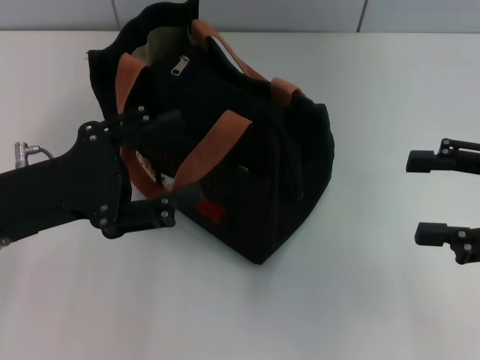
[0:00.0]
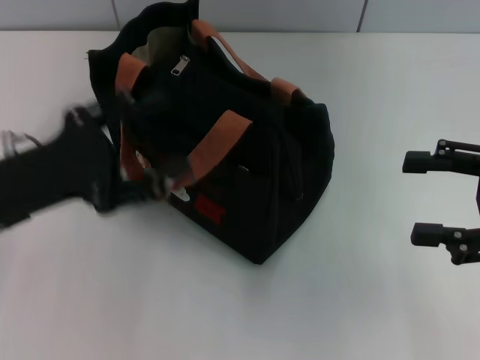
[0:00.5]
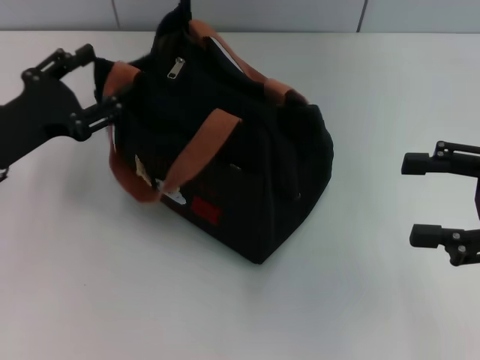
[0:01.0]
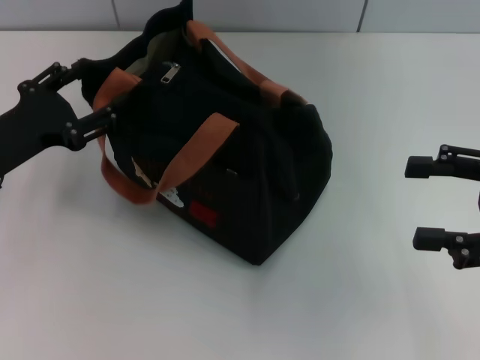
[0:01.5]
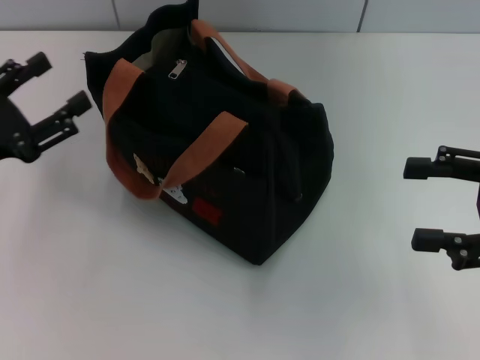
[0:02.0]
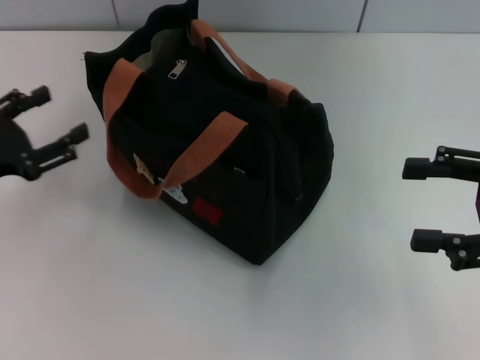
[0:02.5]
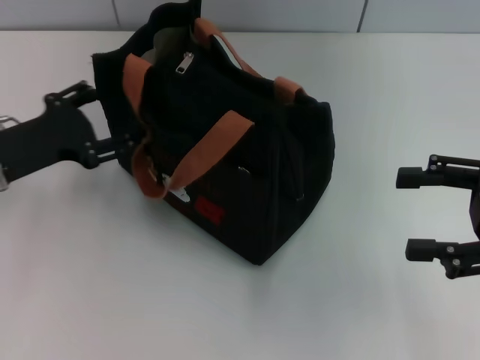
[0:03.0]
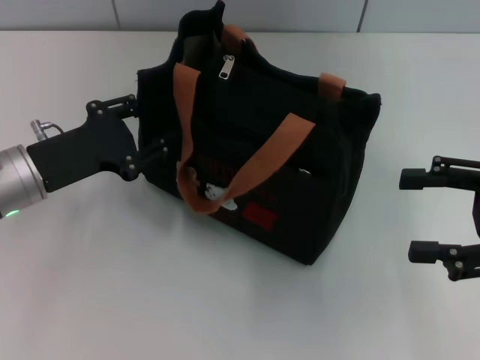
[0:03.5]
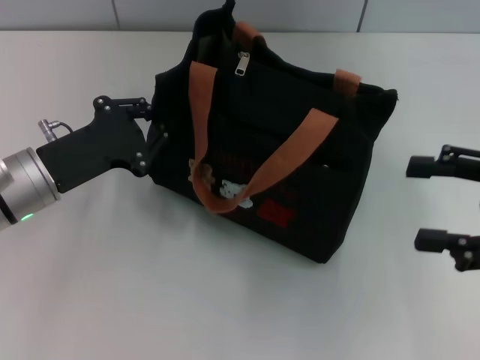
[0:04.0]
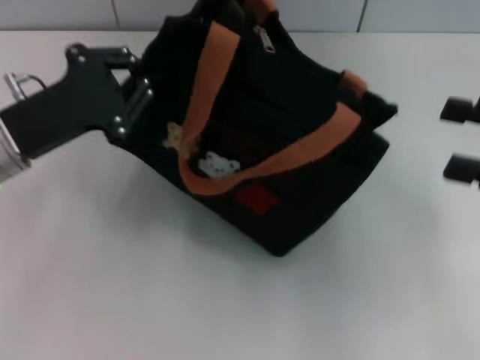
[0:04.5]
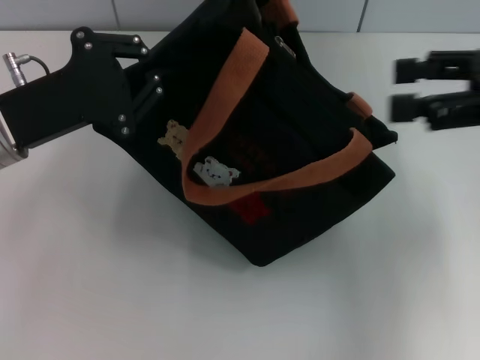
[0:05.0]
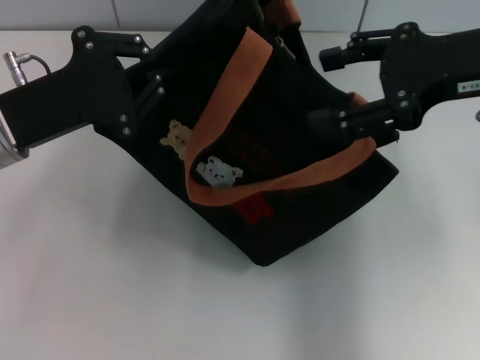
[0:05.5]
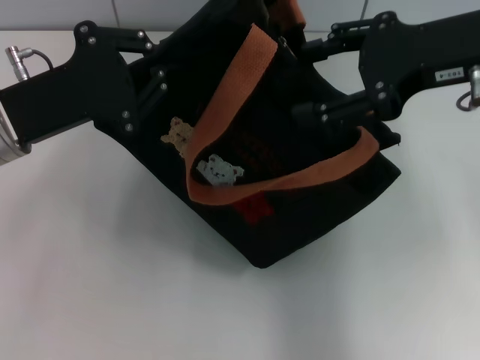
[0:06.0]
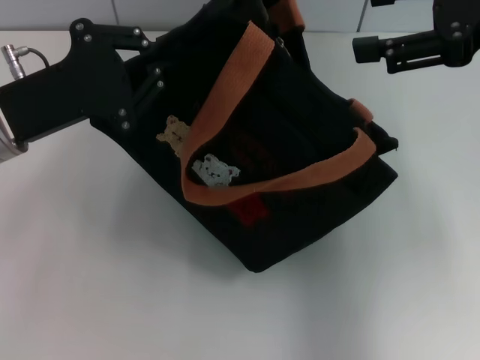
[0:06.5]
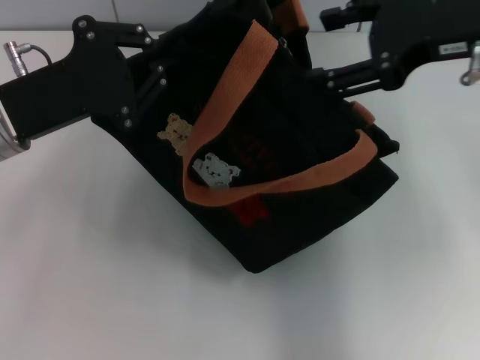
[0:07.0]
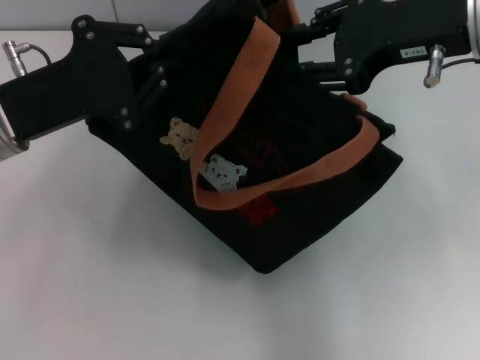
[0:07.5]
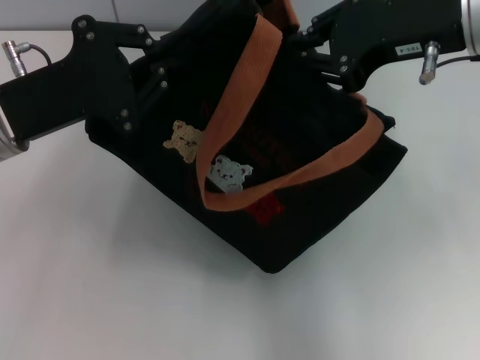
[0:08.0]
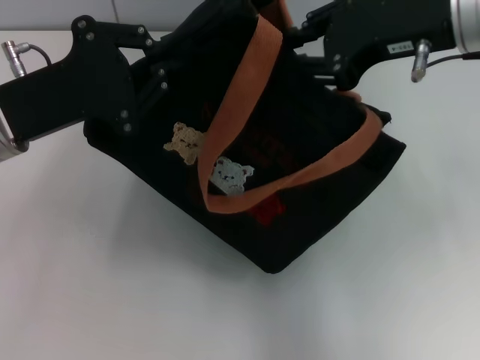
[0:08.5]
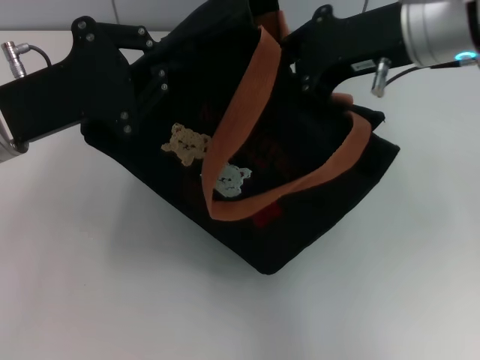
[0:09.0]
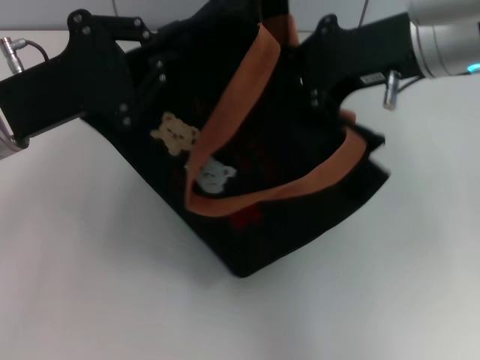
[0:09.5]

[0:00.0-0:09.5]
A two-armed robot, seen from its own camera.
0.0 to 2.0 s: The left gripper heads to the left, covering some 5 cm.
2.0 to 4.0 s: The left gripper travels to the right by some 10 cm, and closes.
4.0 to 5.5 s: The left gripper moves upward, some 5 cm. The right gripper goes approximately 15 cm upward, to the left and forward.
5.5 to 7.5 s: There are only small adjustments of the grippers.
7.5 to 9.5 s: The right gripper closes up.

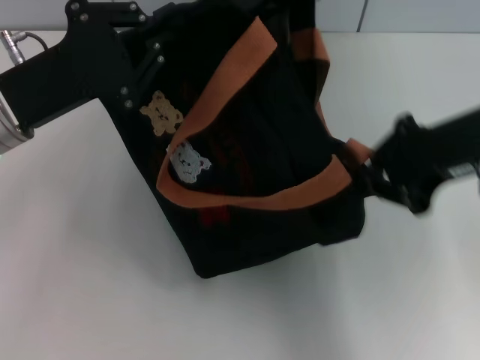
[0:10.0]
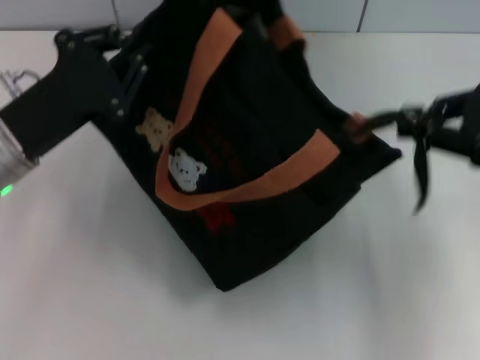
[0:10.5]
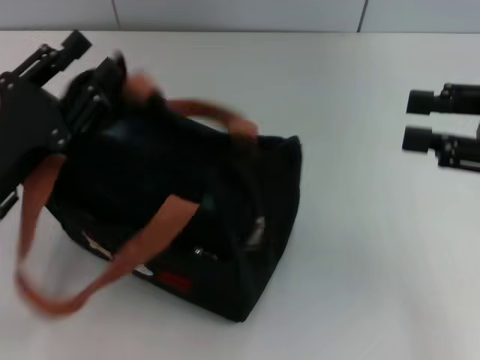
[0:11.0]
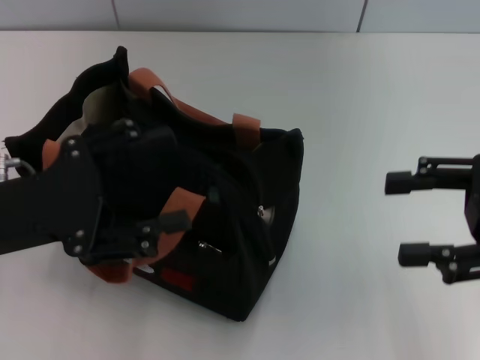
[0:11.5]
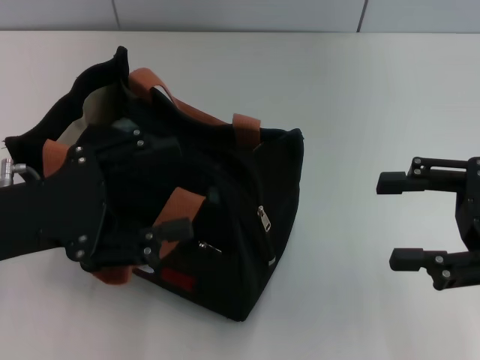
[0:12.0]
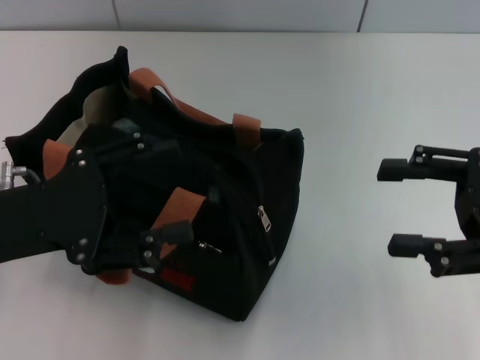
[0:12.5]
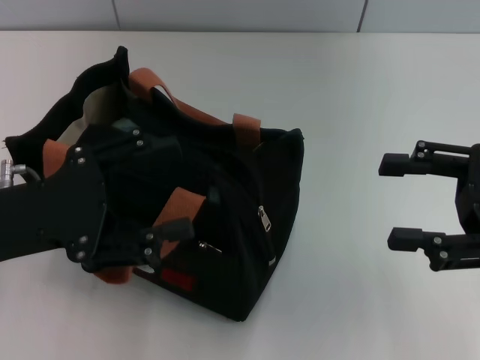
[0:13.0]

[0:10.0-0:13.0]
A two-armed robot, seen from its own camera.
10.0 to 11.5 s: The right gripper goes roughly 10 cm to the right and backward, and opens up, while the left gripper travels backward by roughly 10 cm, and opens its fingers.
11.5 to 13.0 s: The grippers move only a little.

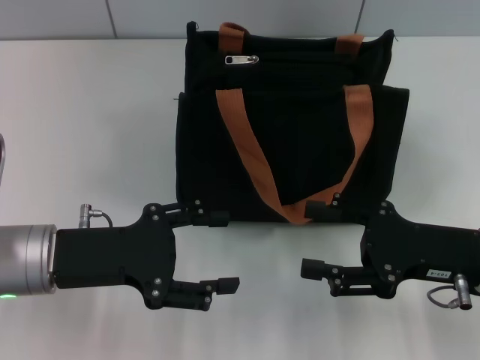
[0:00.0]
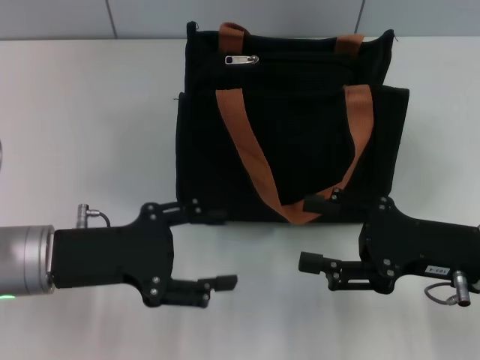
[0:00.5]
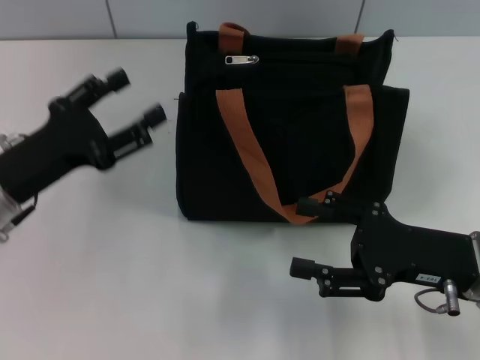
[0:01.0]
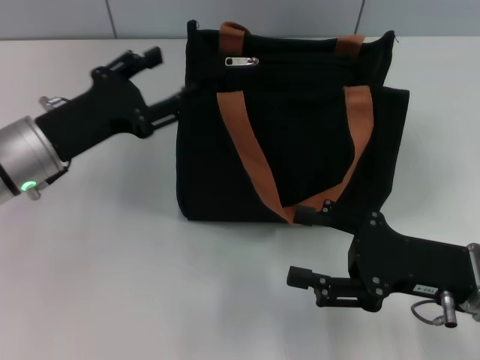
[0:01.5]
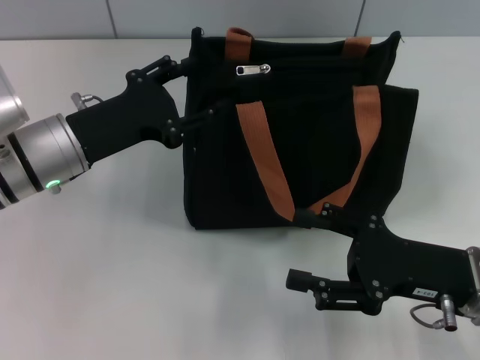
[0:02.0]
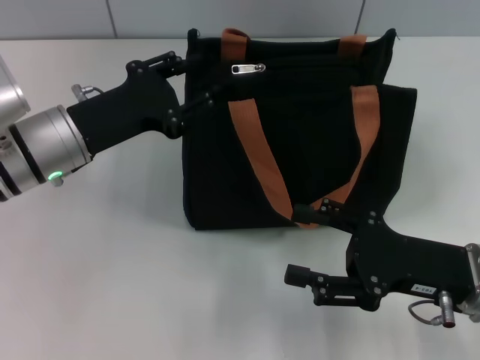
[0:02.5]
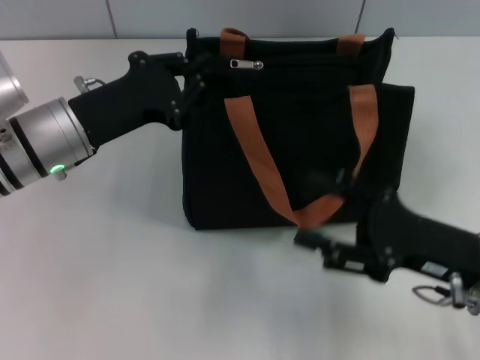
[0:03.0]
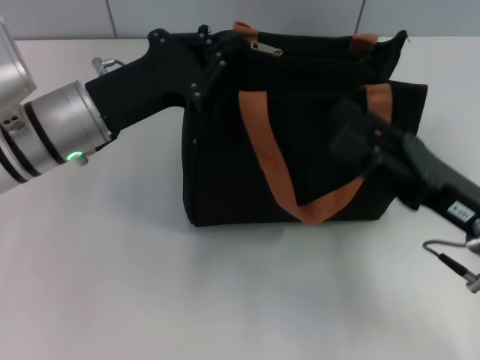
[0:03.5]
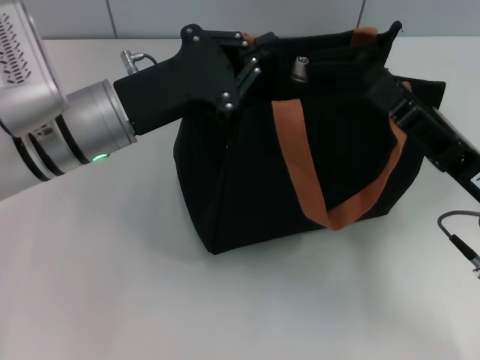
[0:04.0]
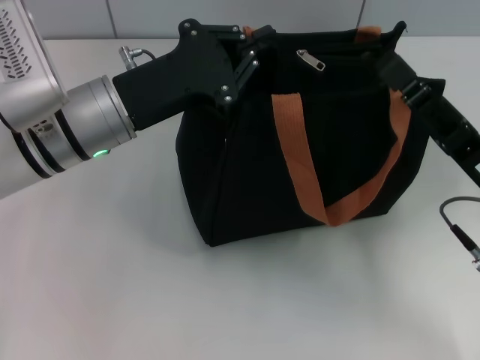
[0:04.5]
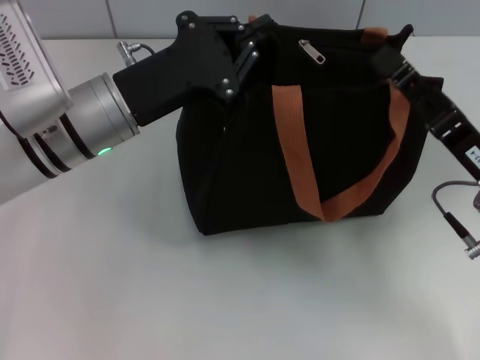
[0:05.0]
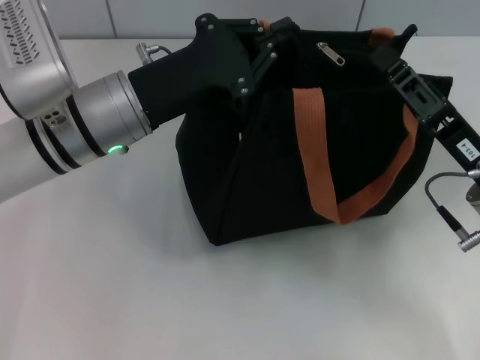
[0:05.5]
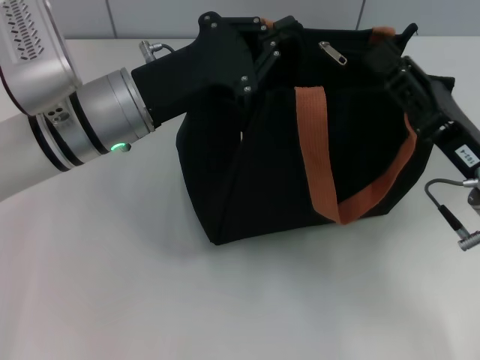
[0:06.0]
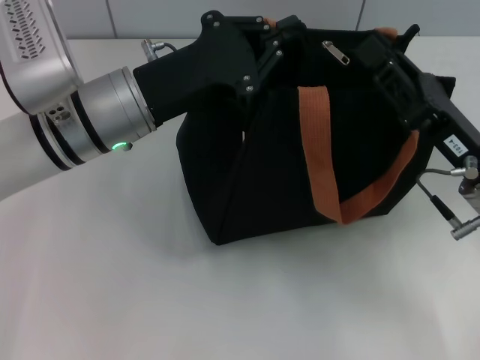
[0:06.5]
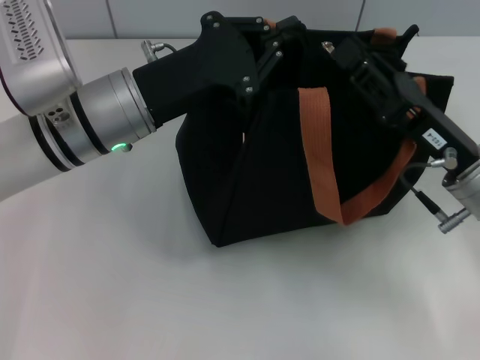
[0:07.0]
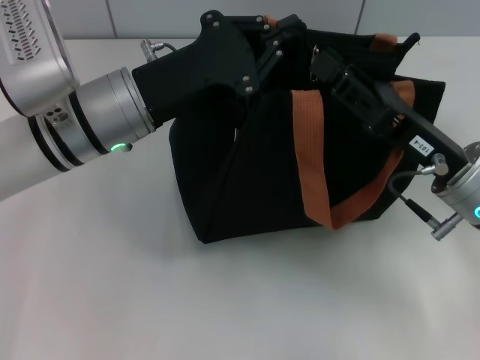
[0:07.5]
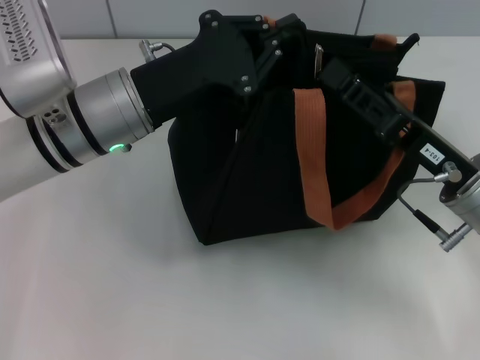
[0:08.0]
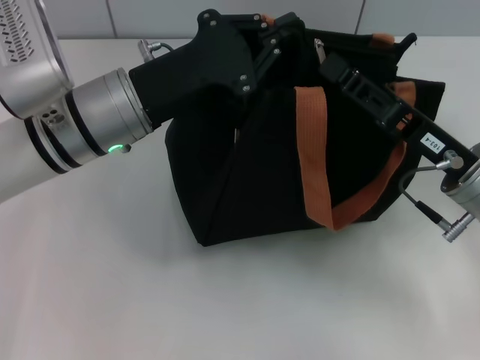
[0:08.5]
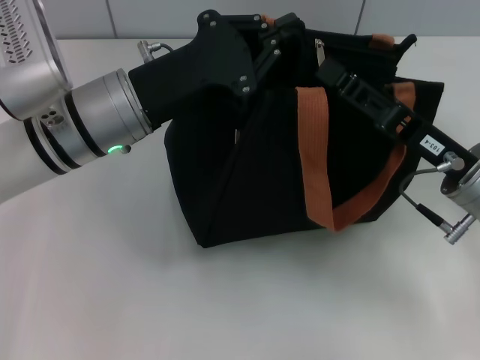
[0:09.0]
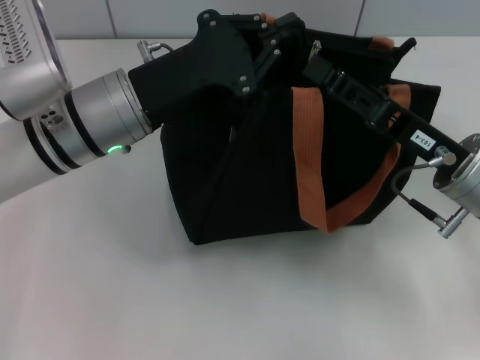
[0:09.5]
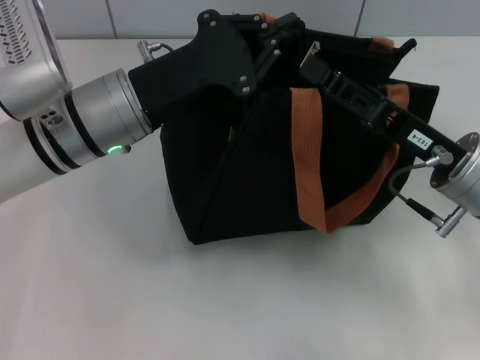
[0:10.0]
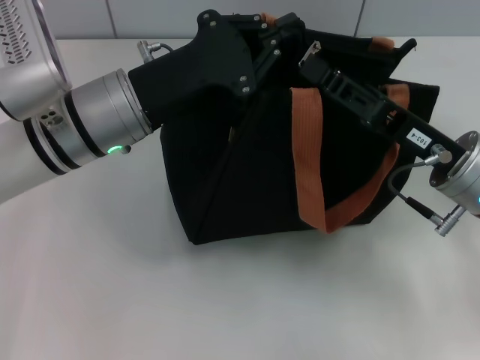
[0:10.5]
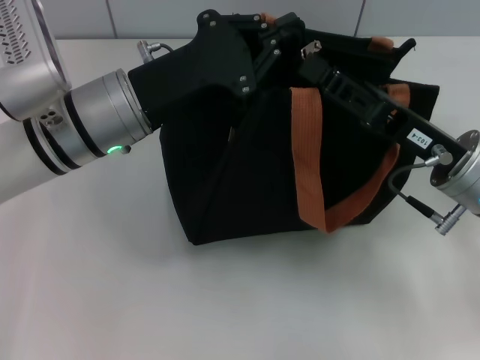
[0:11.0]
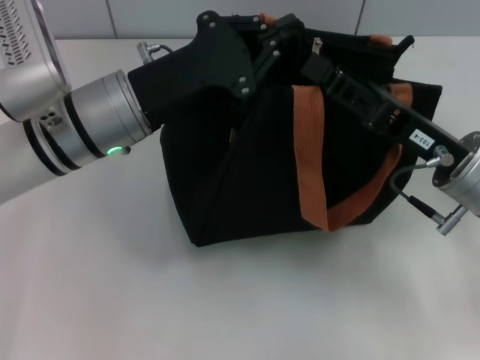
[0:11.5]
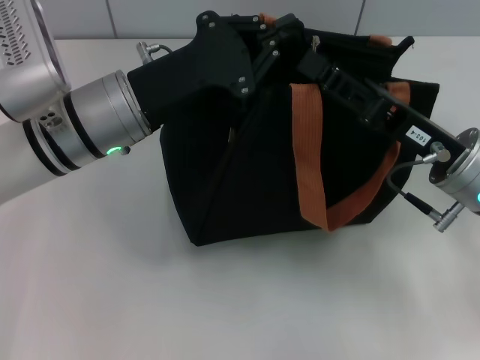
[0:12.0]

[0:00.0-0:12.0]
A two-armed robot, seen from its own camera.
0.0 to 2.0 s: The left gripper moves forward, approximately 10 cm.
2.0 to 4.0 s: The left gripper changes place by about 5 cm, and closes its fingers.
4.0 to 6.0 s: The right gripper closes up.
6.0 to 8.0 s: The grippers stay close to where they were, moving slightly.
8.0 to 10.0 s: The grippers move only a little.
10.0 to 12.0 s: Neither gripper changes place.

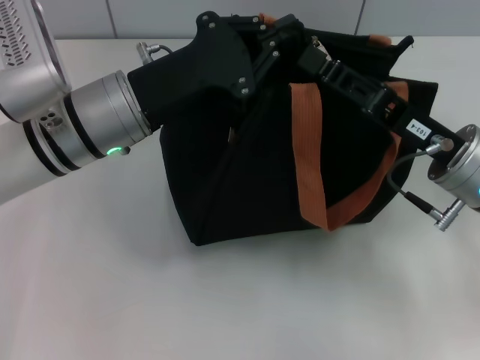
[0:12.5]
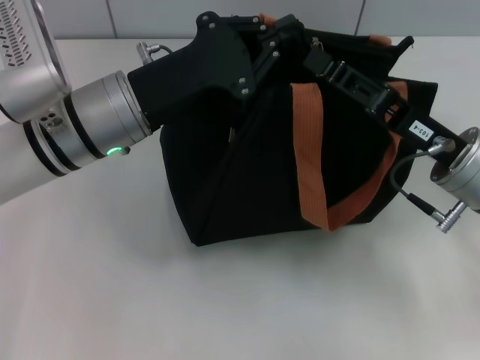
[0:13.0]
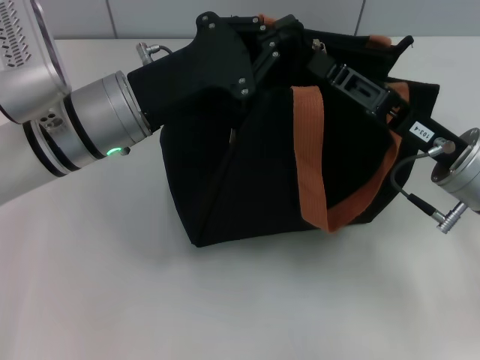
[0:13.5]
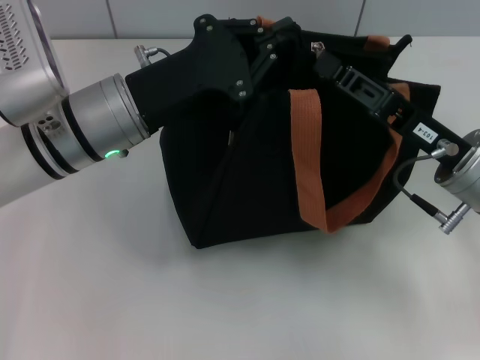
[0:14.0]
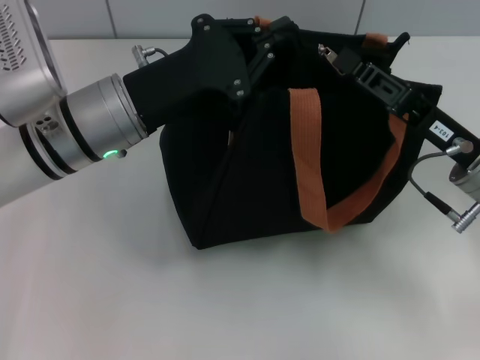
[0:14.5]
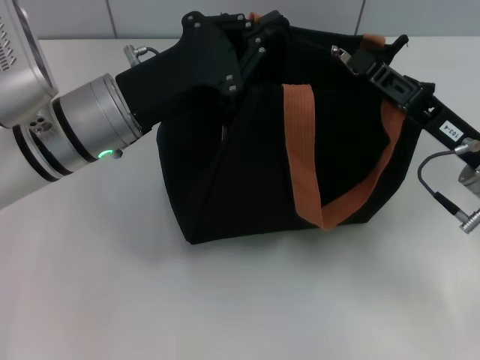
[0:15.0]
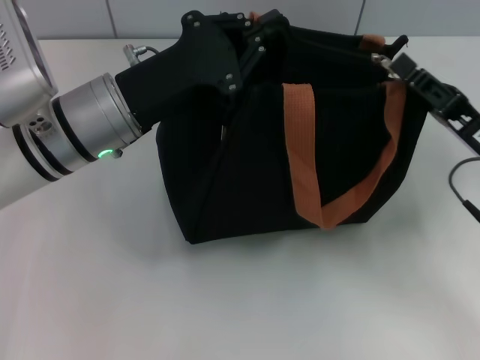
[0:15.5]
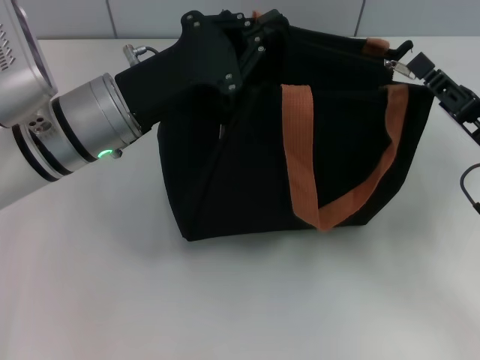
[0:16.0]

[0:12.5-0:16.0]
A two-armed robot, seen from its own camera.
Step, 12.5 to 16.0 s: Pull up the zipper with your right hand.
12.5 to 14.5 s: The right gripper closes its fingers.
14.5 to 16.0 s: The right gripper ends up about 5 cm from where it was.
